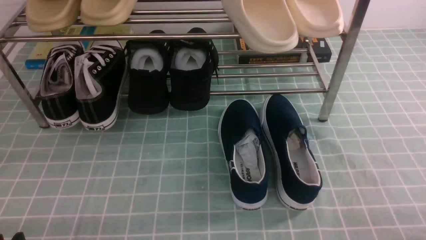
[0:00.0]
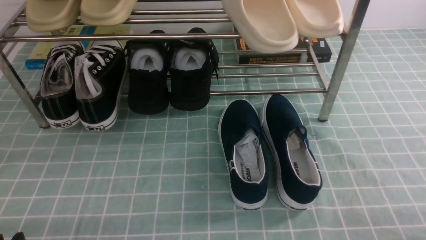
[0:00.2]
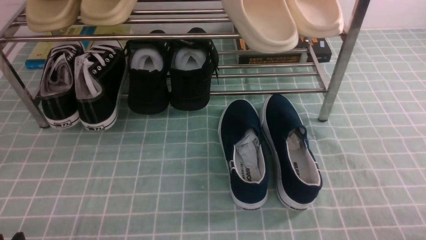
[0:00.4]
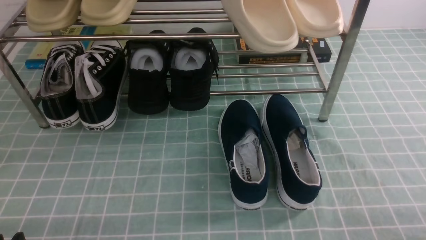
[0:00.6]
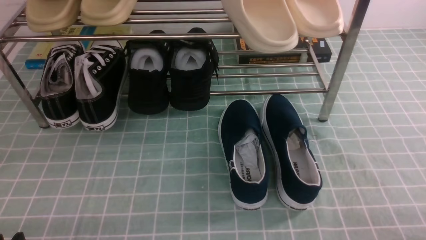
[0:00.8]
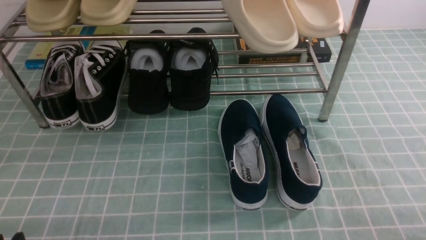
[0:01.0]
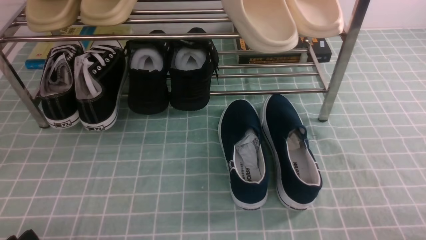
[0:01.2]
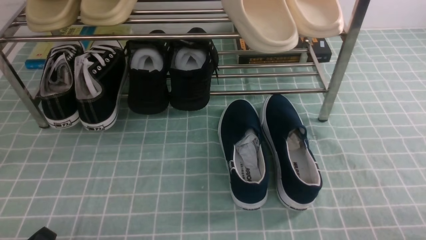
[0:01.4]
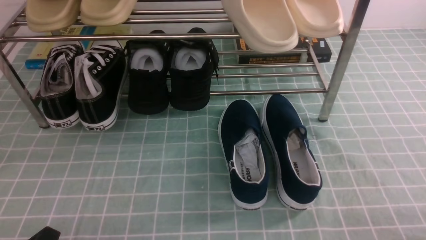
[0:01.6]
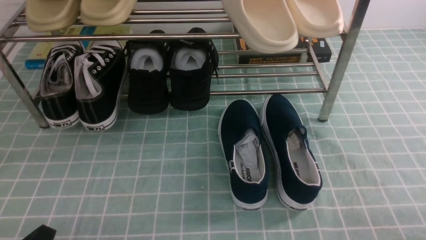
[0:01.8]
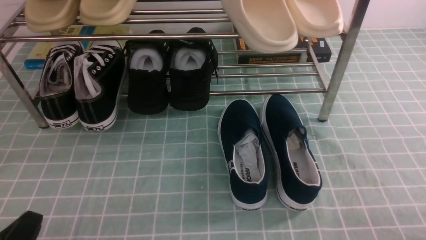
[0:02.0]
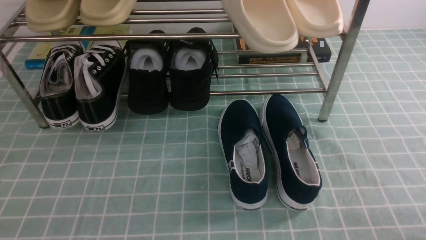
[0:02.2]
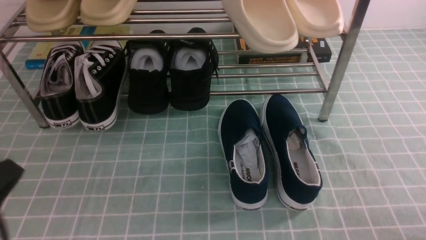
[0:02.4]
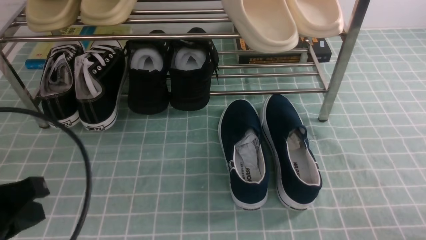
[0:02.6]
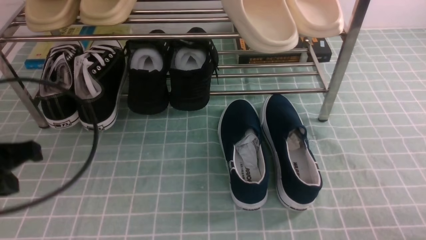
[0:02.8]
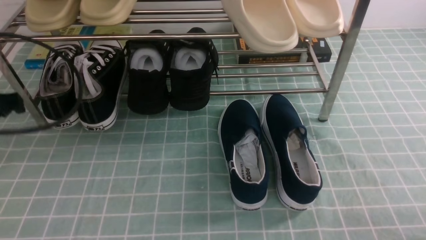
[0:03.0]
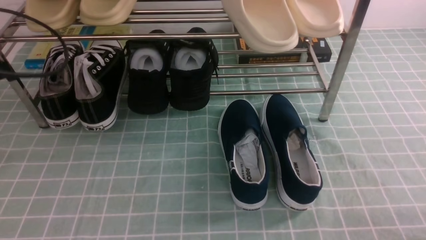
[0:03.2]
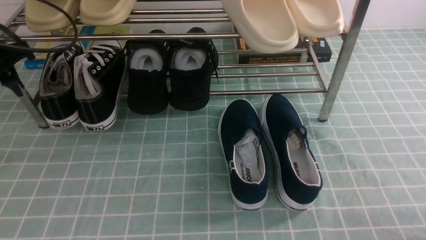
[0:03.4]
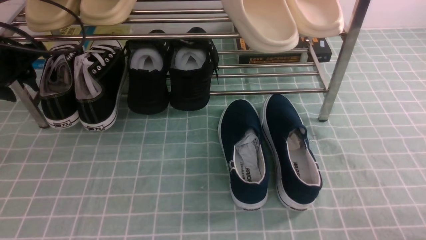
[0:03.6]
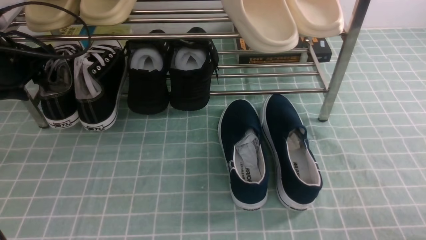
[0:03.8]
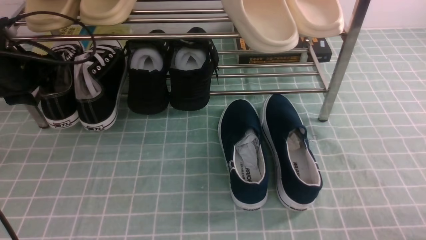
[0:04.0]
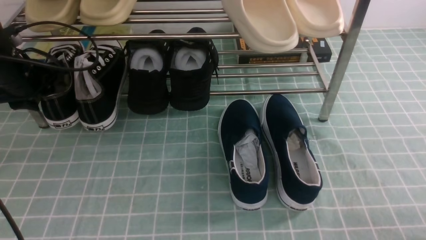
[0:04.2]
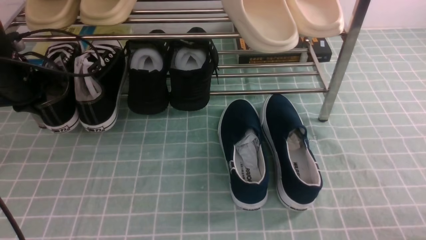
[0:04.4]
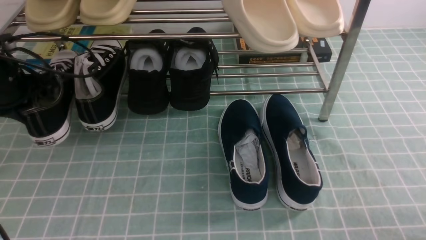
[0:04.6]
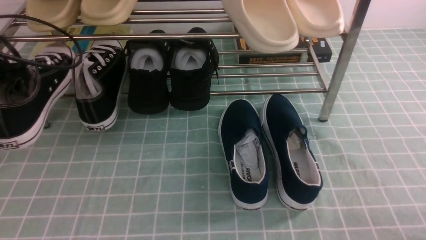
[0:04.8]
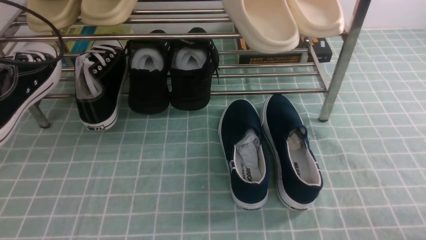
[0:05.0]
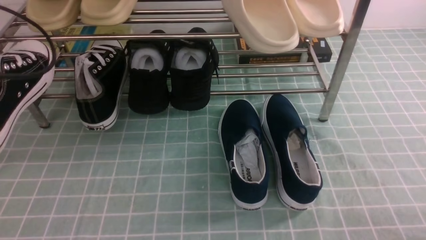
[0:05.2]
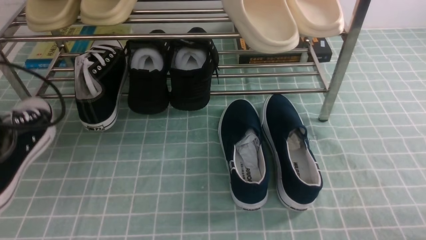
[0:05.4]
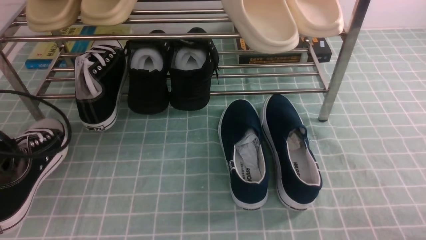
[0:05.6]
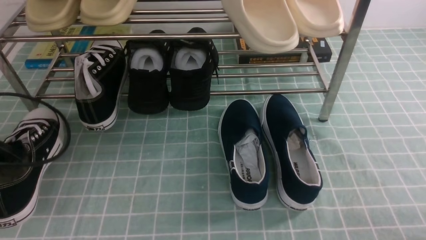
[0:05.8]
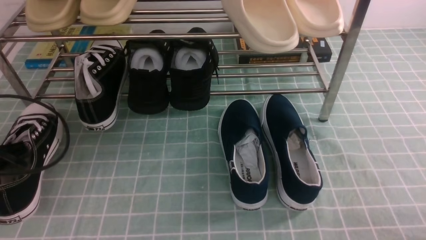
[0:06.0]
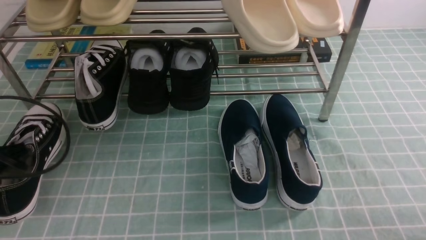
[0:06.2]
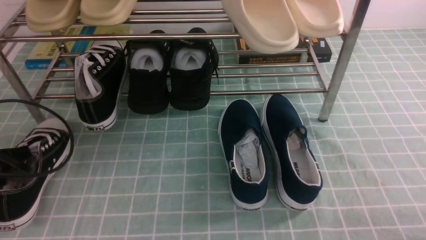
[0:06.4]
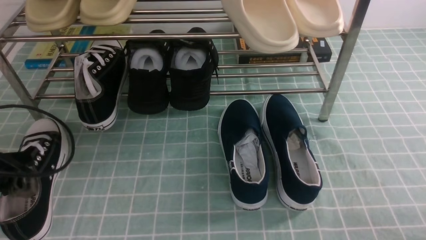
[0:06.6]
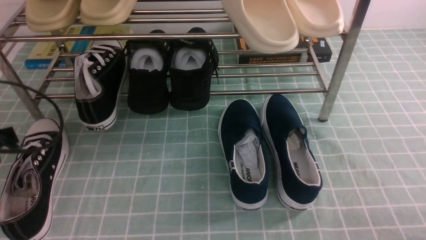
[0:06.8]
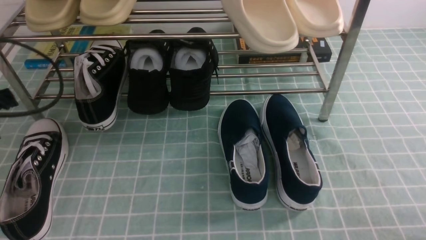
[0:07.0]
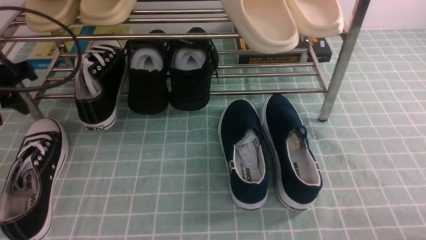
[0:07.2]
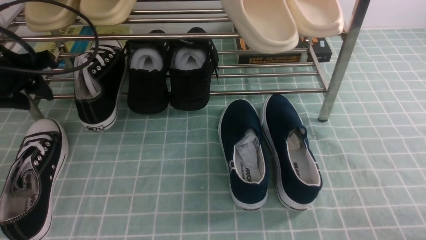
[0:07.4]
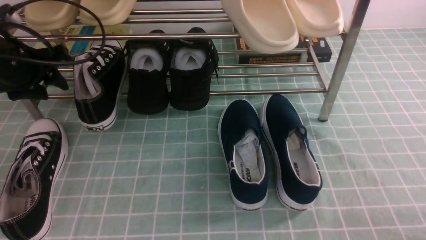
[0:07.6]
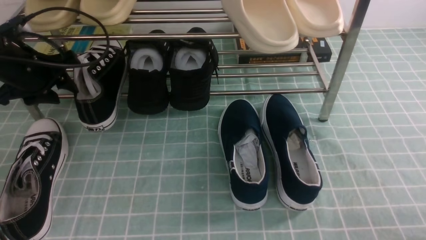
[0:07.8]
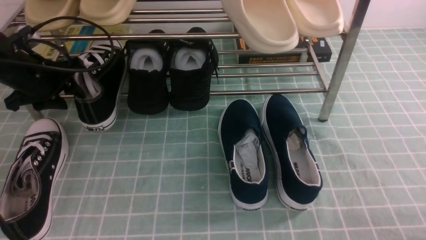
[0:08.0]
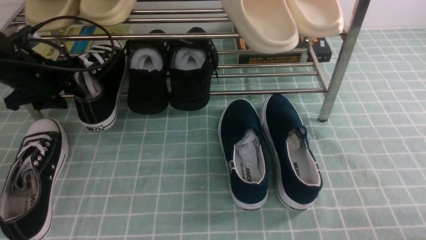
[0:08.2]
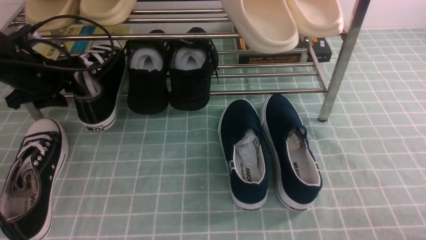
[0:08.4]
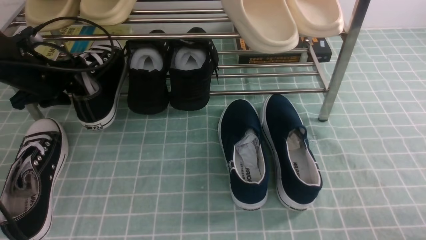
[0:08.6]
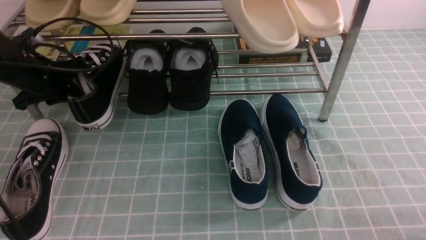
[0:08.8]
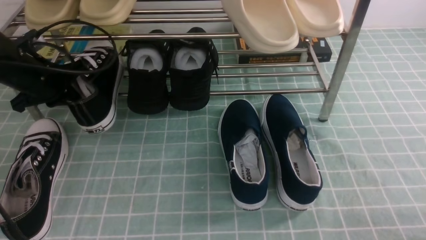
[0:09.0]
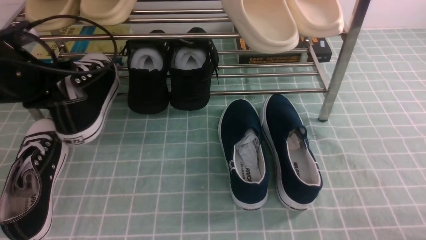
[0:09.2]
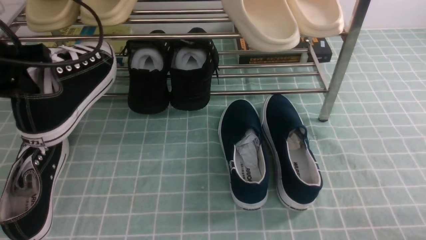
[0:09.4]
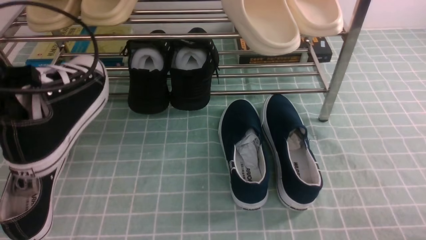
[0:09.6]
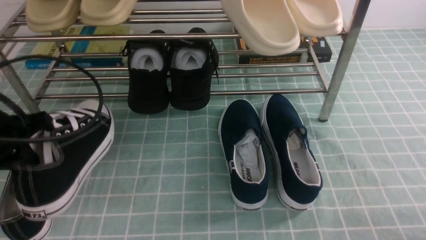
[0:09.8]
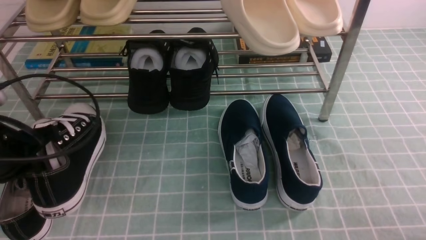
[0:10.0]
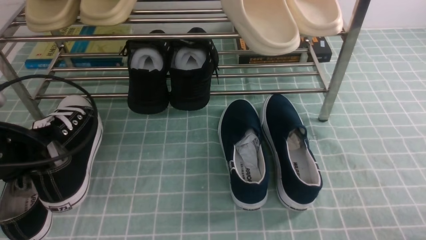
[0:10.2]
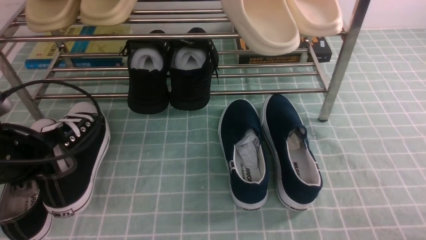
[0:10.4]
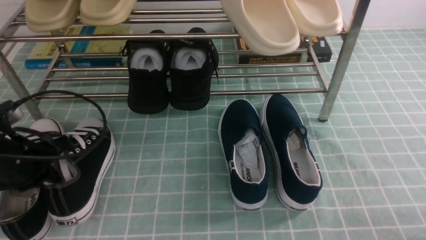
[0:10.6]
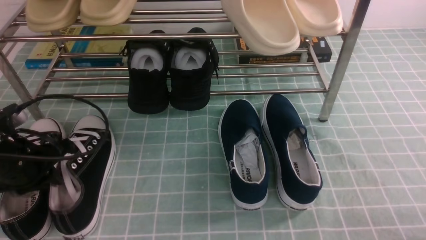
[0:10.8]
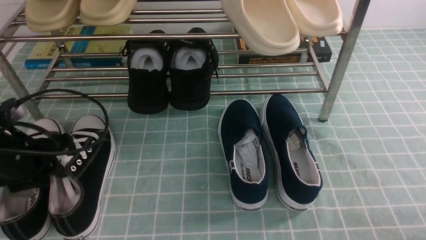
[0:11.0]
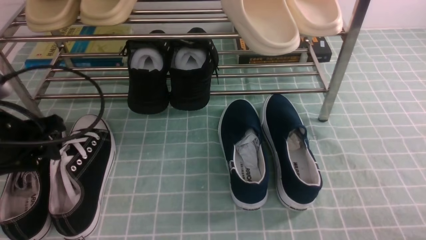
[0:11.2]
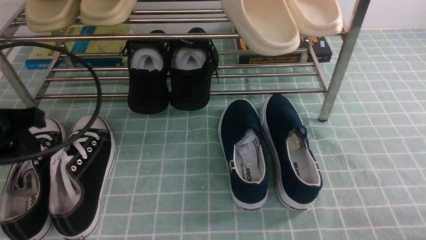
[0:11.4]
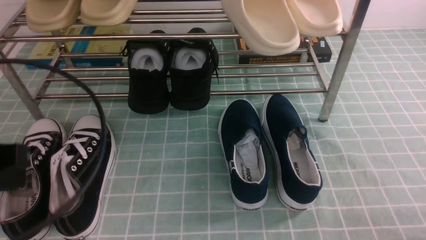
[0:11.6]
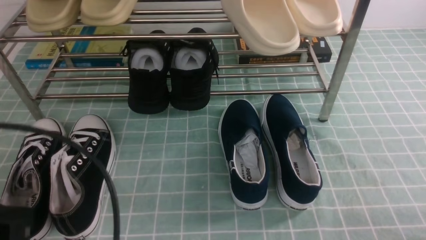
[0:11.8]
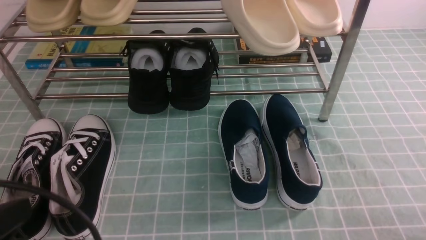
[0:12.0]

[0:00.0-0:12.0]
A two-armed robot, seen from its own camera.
Step, 0:00.0 to 0:04.2: use the left arm to clamp a shoe on the left side of the shoe rack.
Step, 0:04.4 to 0:06.8: Use your left arm to remove the clamped shoe from the shoe rack and put it down.
Step, 0:07.0 to 0:08.8: use the left arm to clamp a shoe on the left side of the shoe rack.
Step, 0:09.0 to 0:11.2: Use your left arm to remove the clamped shoe from the shoe rack and put it down.
0:01.6 to 0:03.0: The left gripper heads forward and upward, covering some 25 cm, and closes, then opens again.
0:03.0 to 0:04.4: The left gripper is displaced forward and downward by about 15 cm, and opens, then closes once more.
0:04.4 to 0:06.0: The left gripper shifts approximately 15 cm backward.
0:06.0 to 0:07.6: The left gripper is displaced forward and upward by roughly 15 cm, and opens its fingers.
0:07.6 to 0:09.0: The left gripper closes.
0:09.0 to 0:10.4: The left gripper moves backward, some 15 cm.
0:10.4 to 0:12.0: The left gripper moves backward, about 20 cm, and opens, then closes once more.

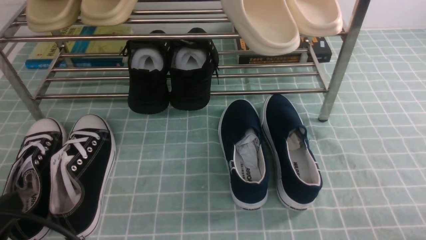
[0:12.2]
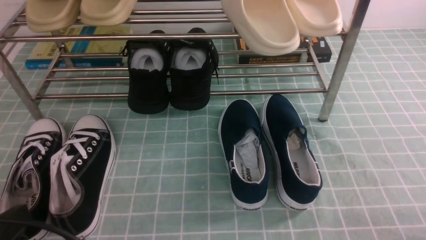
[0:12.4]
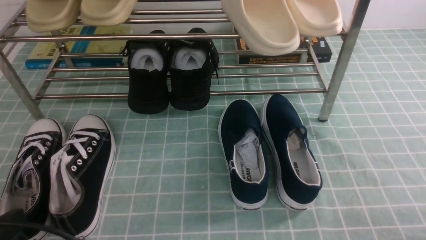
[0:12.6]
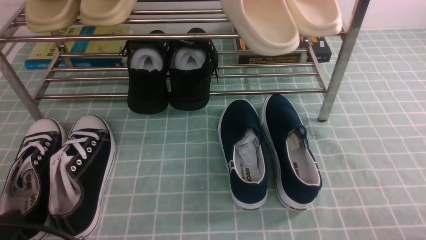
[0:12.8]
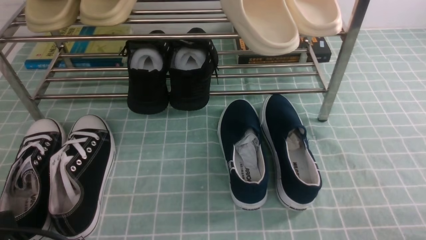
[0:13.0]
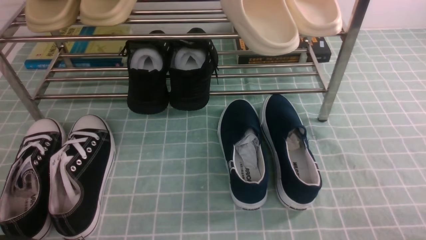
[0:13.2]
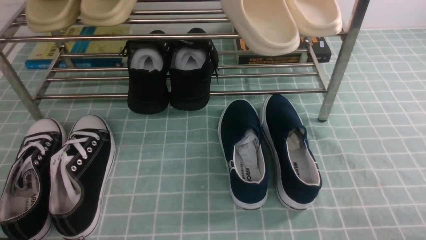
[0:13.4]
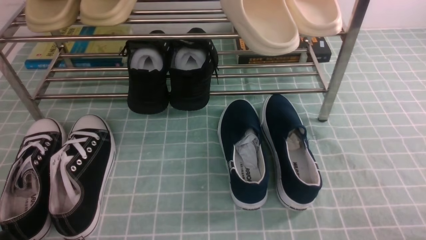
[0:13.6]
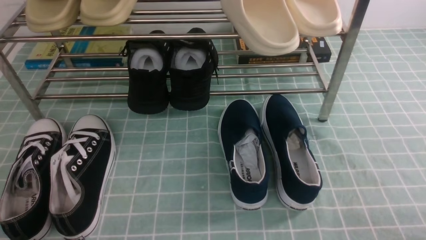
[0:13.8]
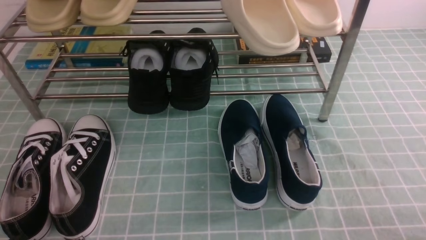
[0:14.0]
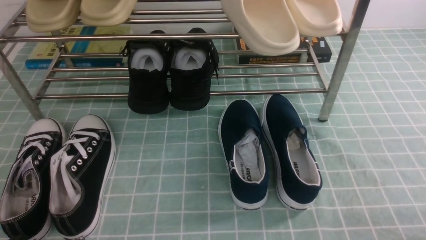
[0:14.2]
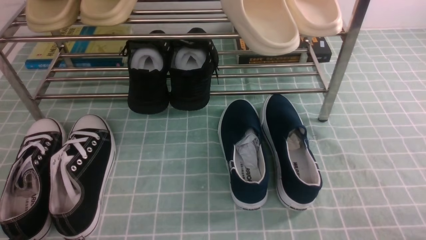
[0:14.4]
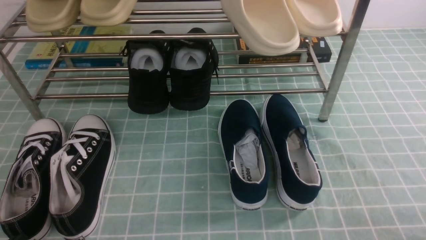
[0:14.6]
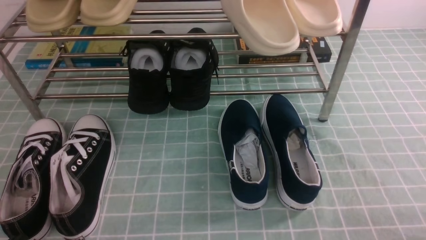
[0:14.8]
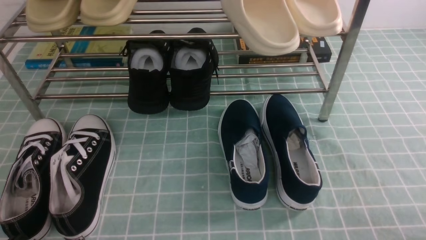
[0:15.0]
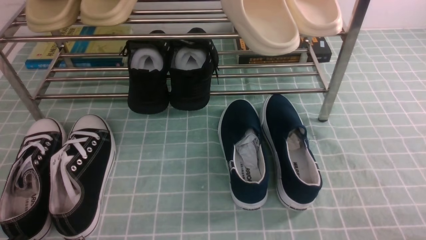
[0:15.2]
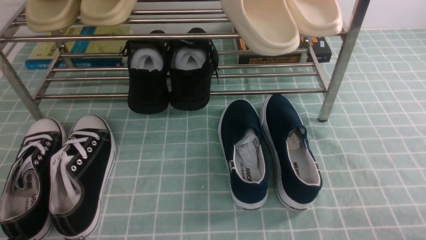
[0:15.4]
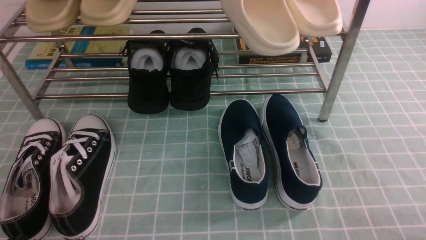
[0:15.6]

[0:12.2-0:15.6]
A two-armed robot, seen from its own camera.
0:12.2 to 0:13.8: The left gripper goes about 10 cm downward.
0:13.8 to 0:15.6: Neither gripper changes place.
